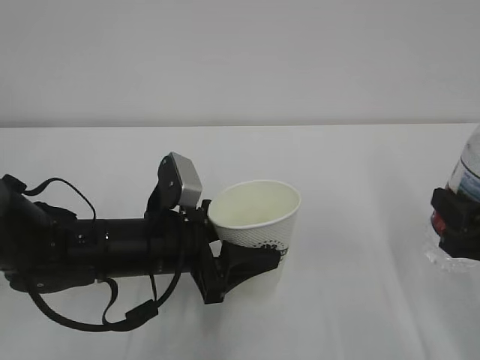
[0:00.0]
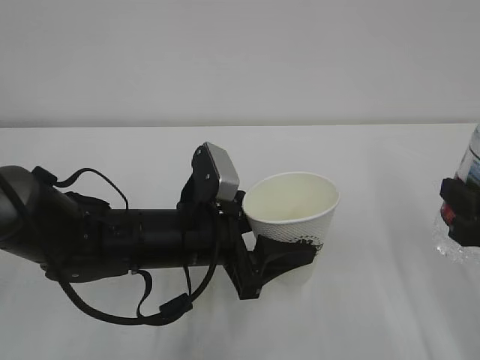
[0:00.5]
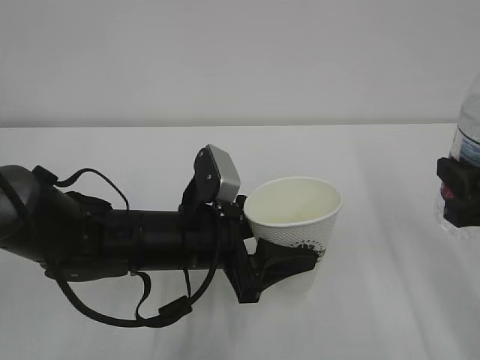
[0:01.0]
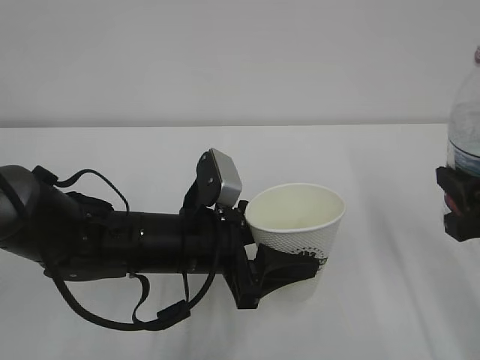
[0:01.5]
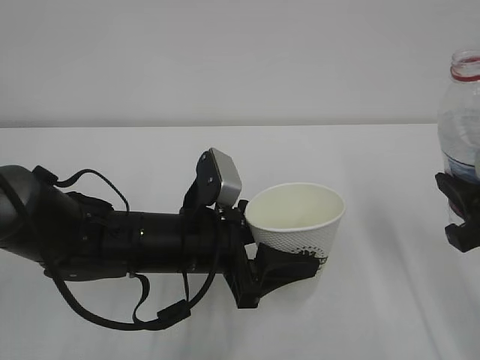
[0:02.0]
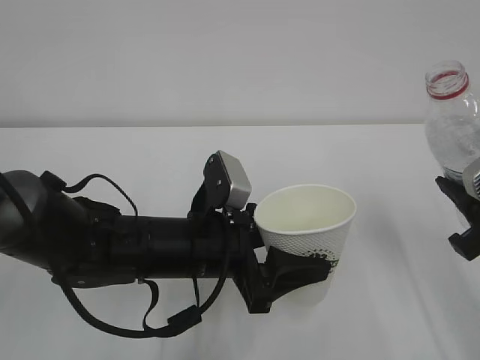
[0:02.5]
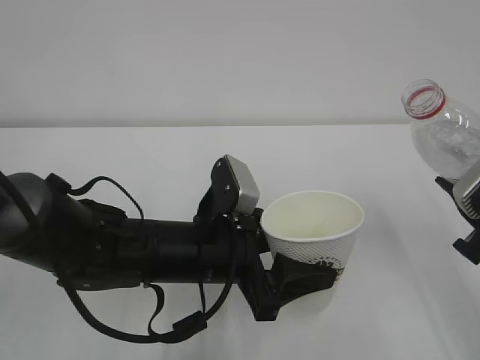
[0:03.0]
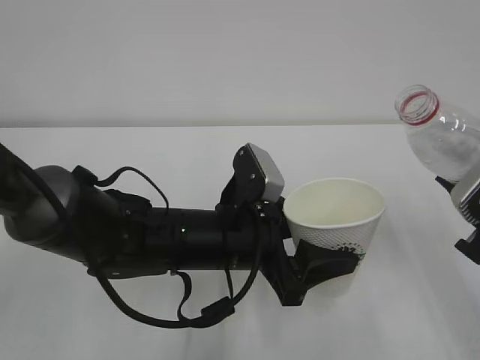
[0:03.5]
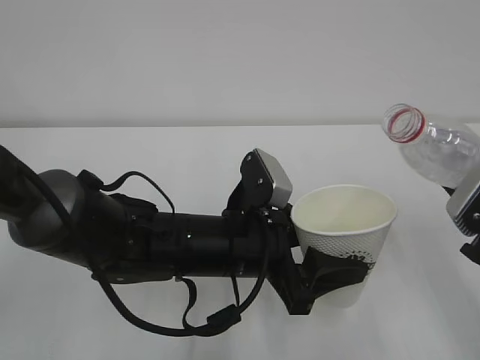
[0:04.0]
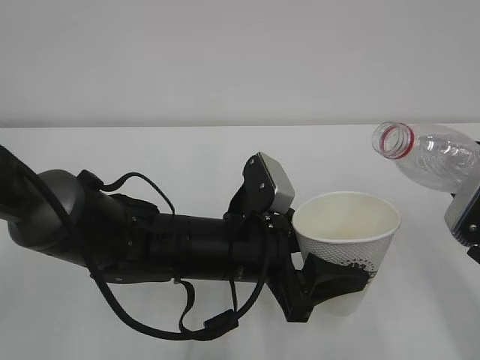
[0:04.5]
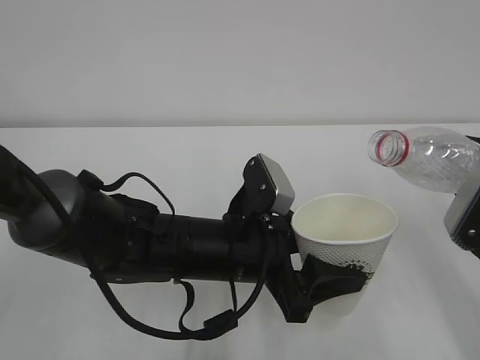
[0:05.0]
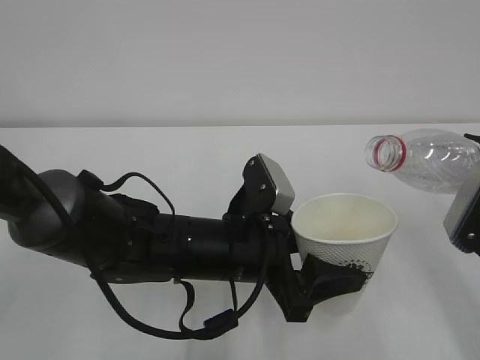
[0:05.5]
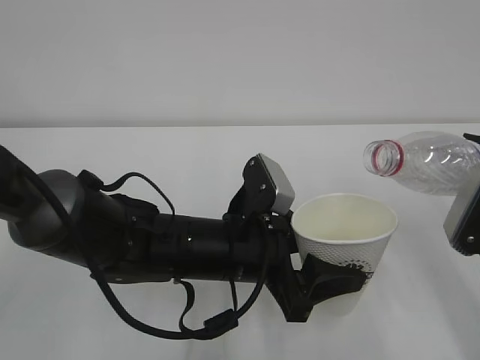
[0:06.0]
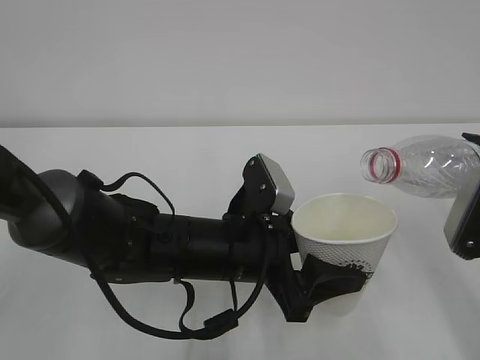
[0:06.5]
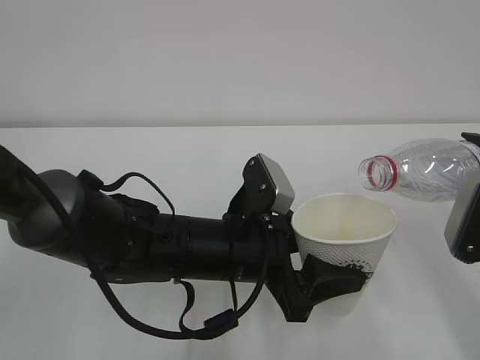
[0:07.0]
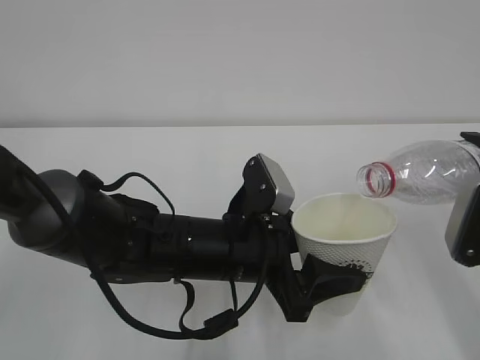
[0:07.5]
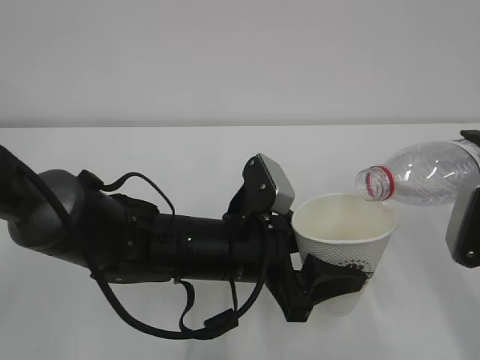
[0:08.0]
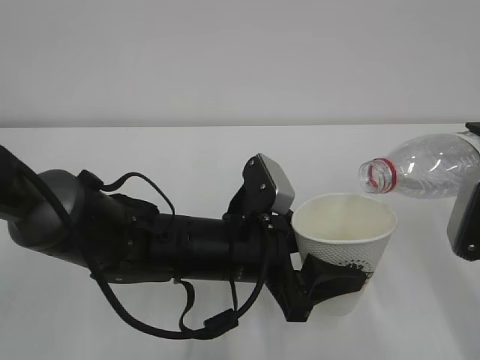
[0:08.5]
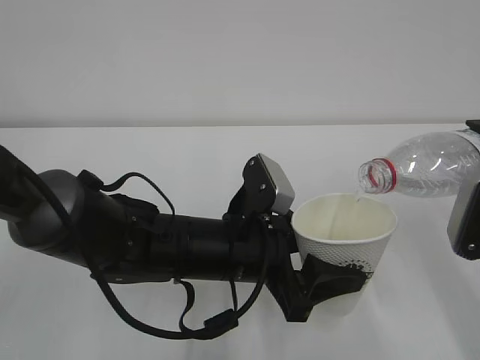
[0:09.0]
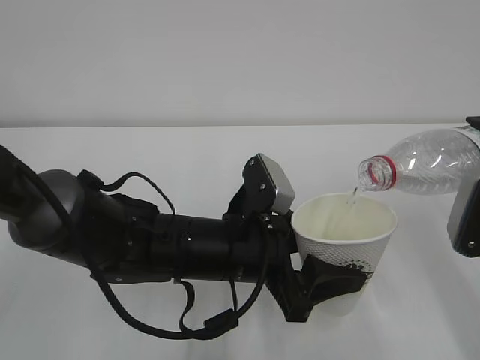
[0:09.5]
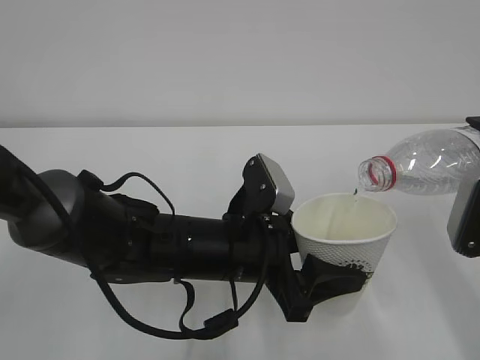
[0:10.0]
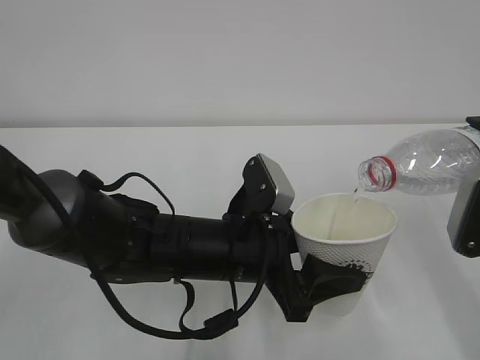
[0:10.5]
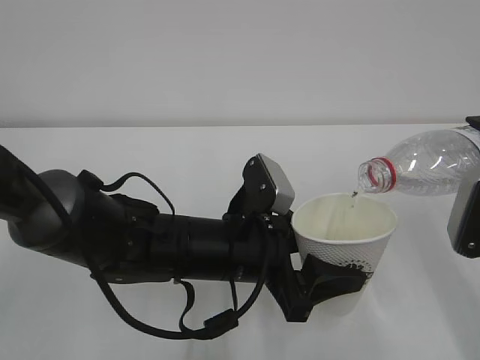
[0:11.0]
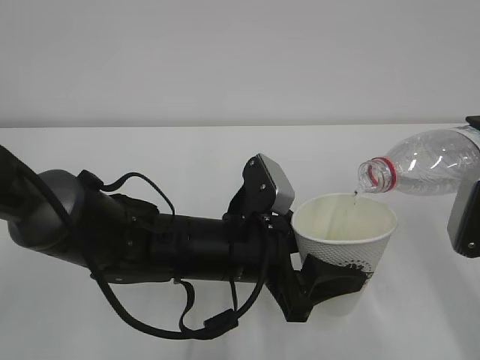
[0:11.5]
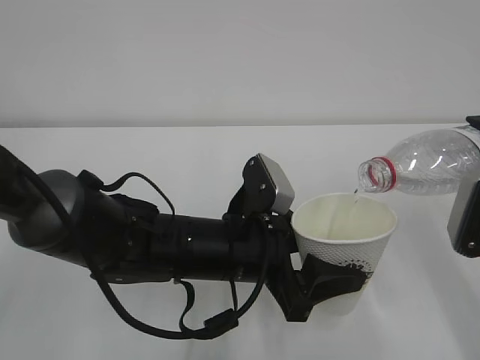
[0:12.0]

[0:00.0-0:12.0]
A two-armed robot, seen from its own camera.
0:04.0 to 0:06.0: The grippers move only a little.
0:06.0 to 0:08.0: The grippers make only small movements.
0:08.0 to 0:12.0: Both grippers stay put.

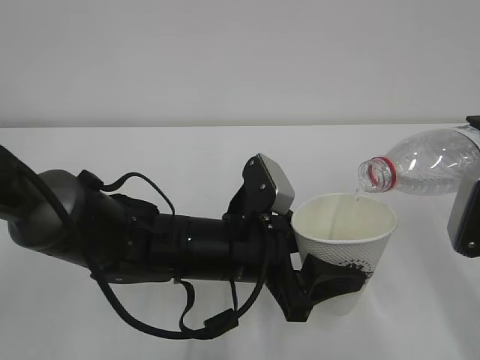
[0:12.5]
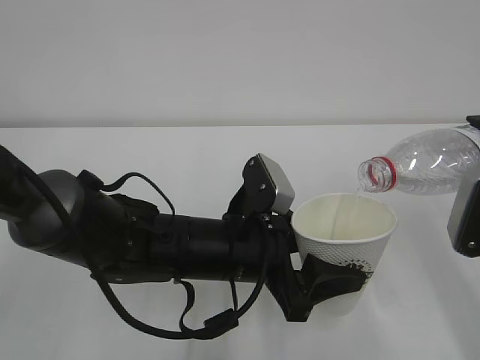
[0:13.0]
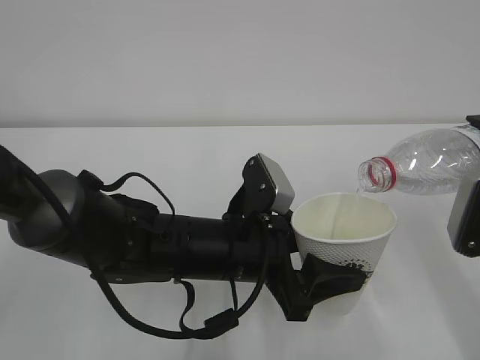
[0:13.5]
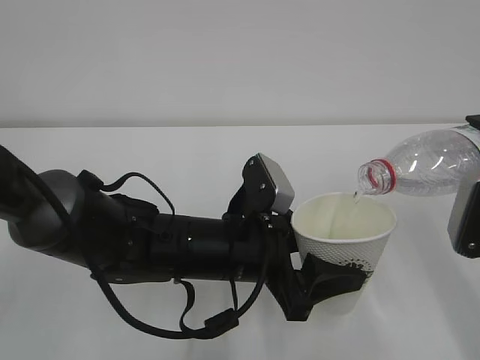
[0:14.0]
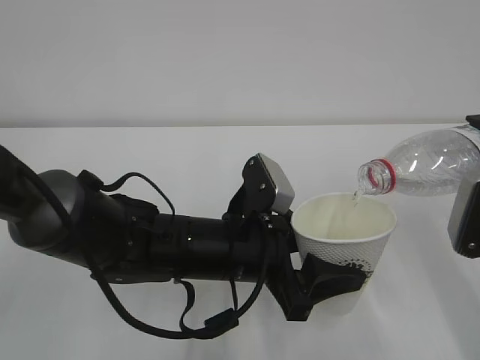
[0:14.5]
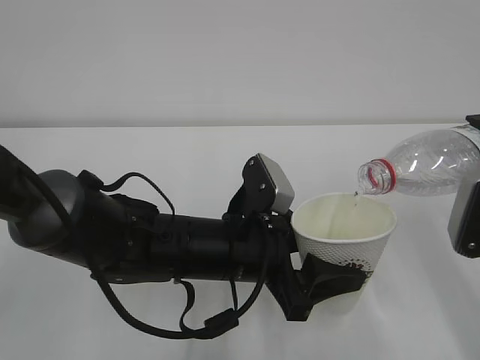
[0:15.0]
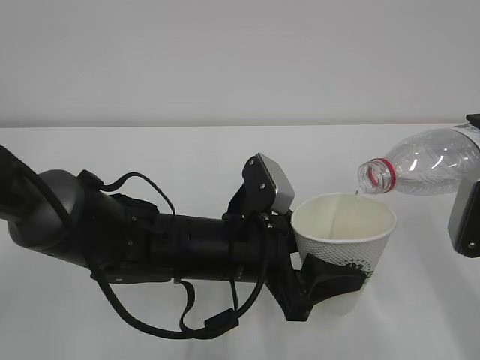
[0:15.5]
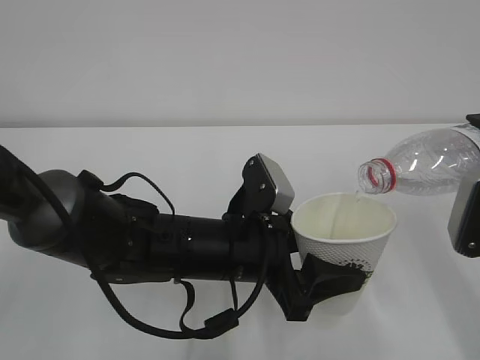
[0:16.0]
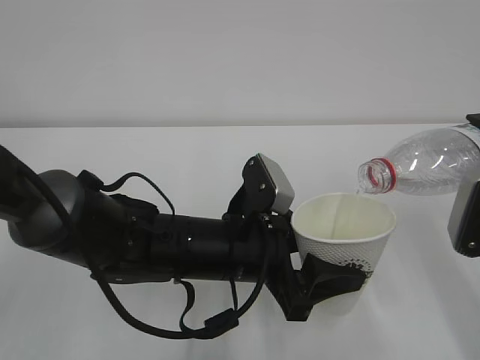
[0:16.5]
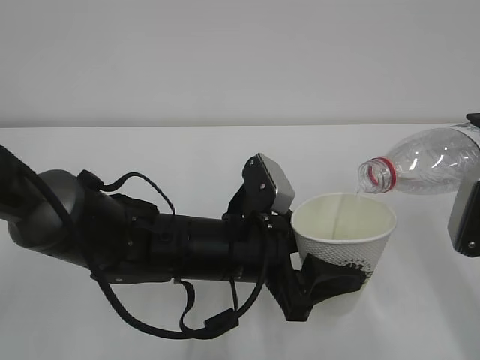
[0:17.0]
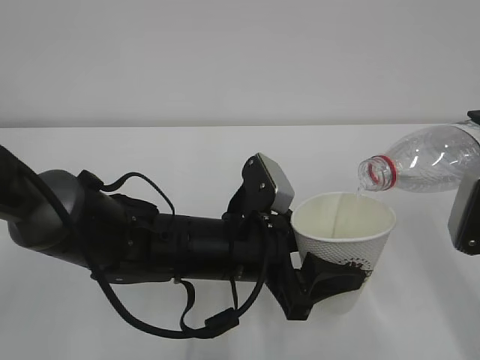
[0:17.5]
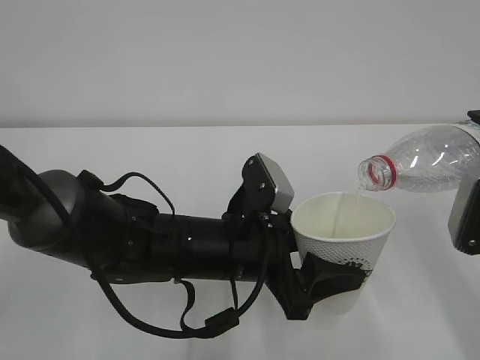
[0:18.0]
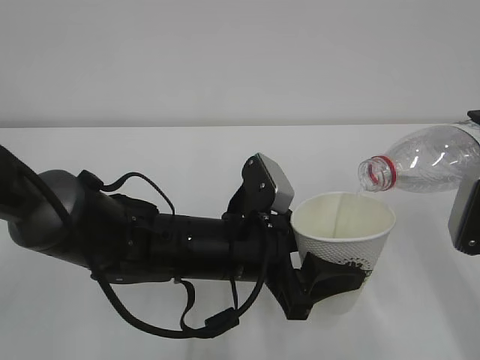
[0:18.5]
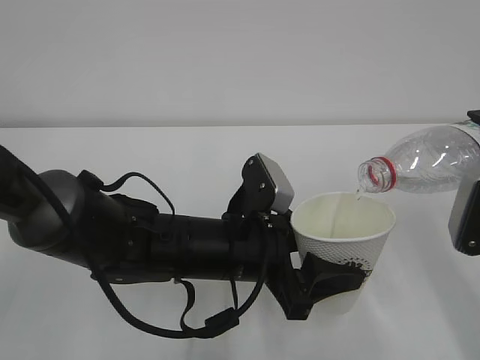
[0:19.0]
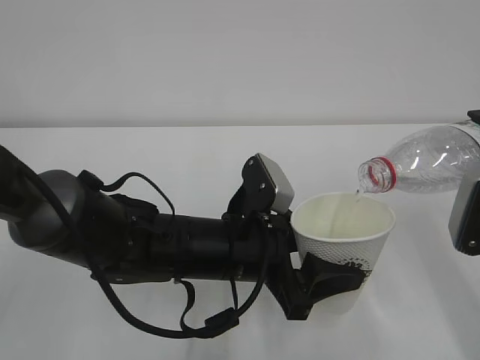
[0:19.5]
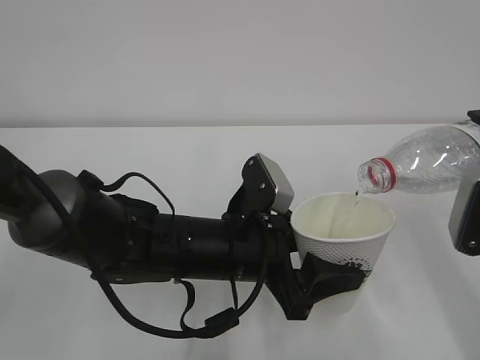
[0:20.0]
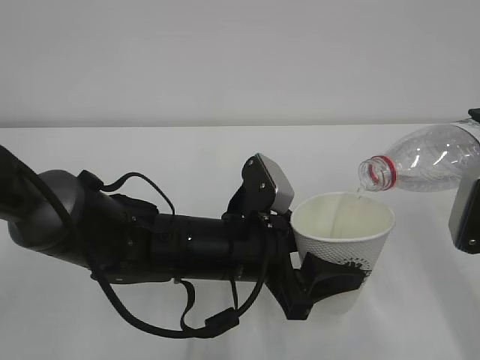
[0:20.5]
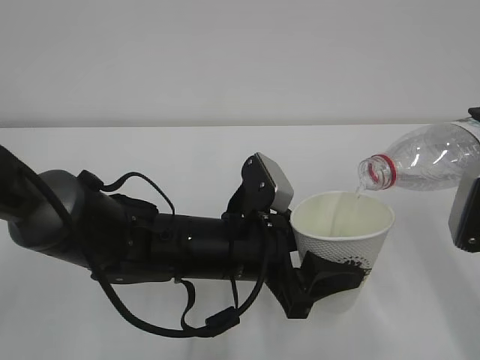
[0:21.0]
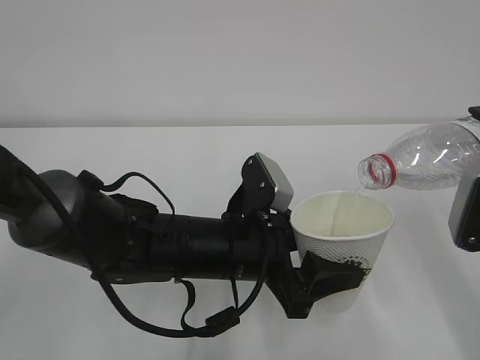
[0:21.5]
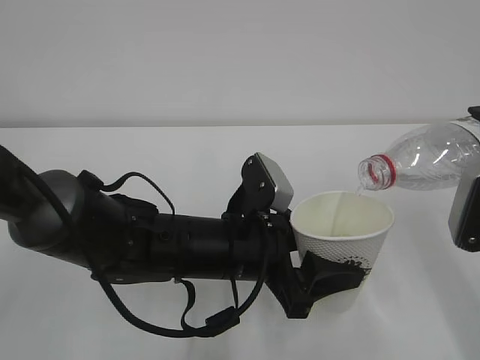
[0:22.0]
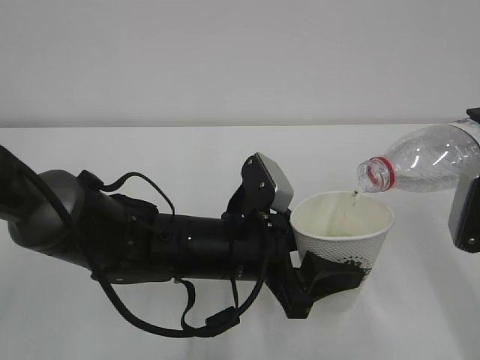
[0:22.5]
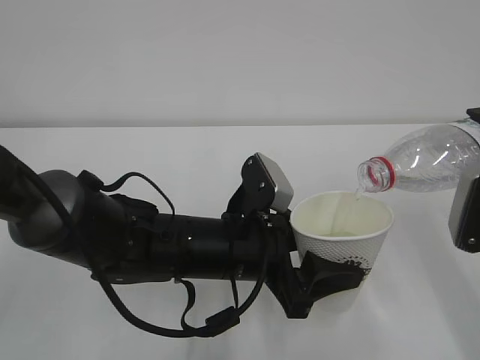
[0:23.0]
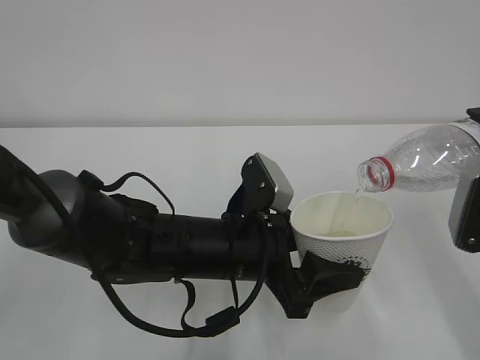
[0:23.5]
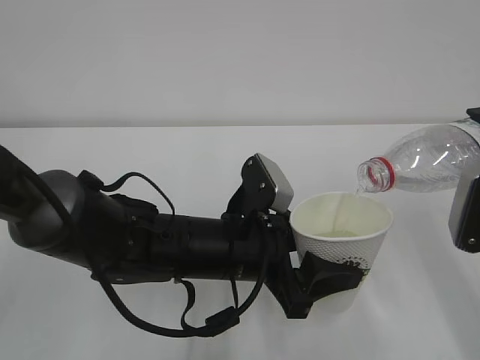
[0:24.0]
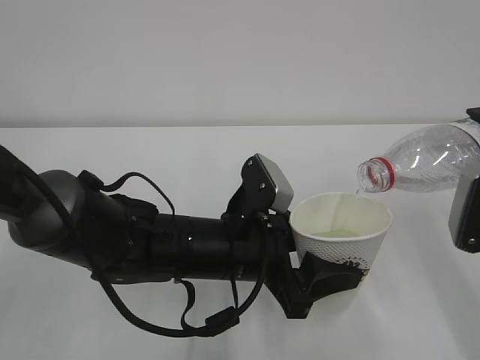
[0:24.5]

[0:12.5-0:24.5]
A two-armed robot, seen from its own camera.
0:12.5 to 0:24.5: Neither gripper changes place.

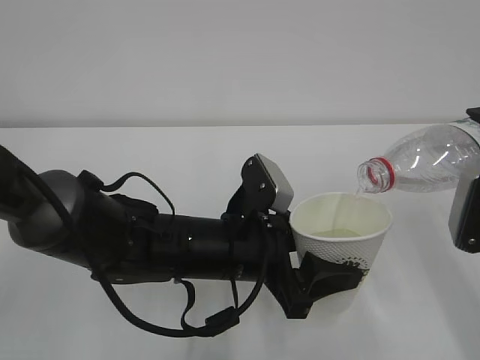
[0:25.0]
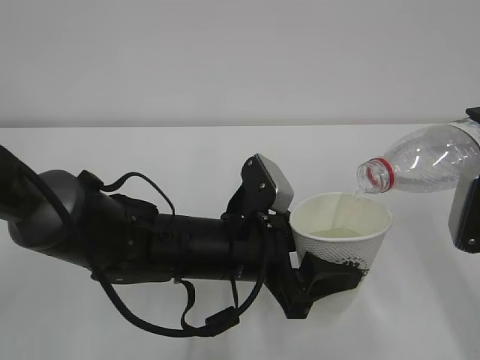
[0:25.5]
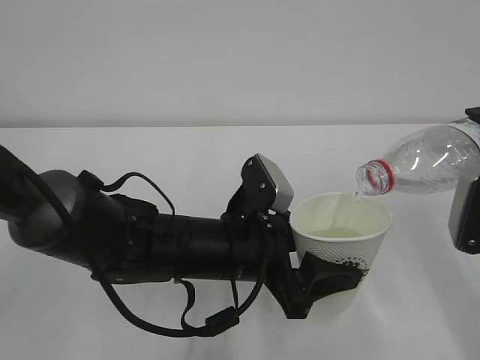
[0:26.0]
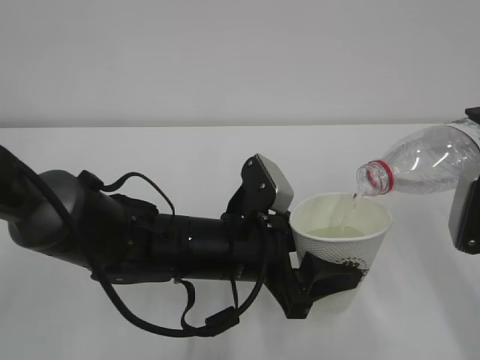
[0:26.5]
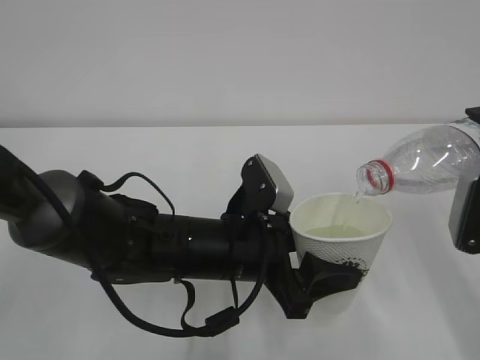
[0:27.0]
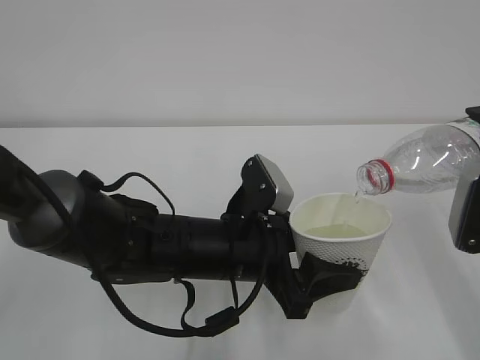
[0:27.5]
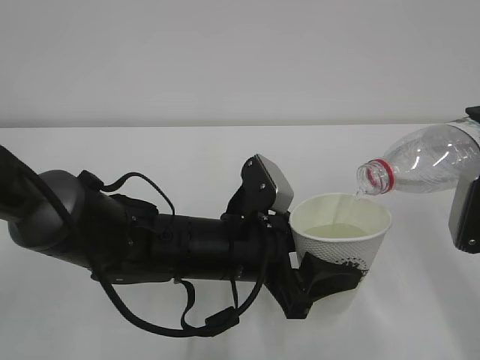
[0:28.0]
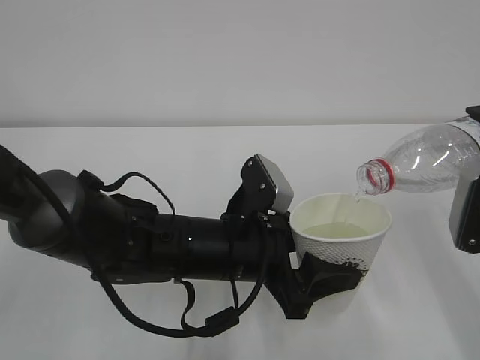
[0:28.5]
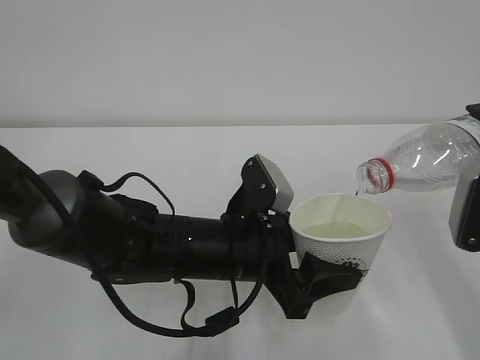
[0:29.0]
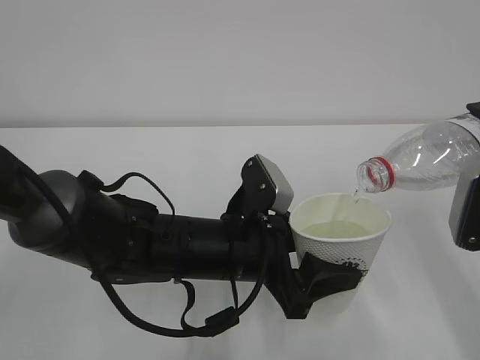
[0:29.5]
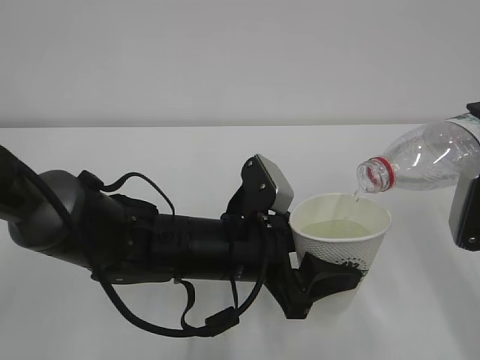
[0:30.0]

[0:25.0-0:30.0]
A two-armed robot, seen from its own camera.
0:25.0 to 0:30.0: Neither gripper changes place.
